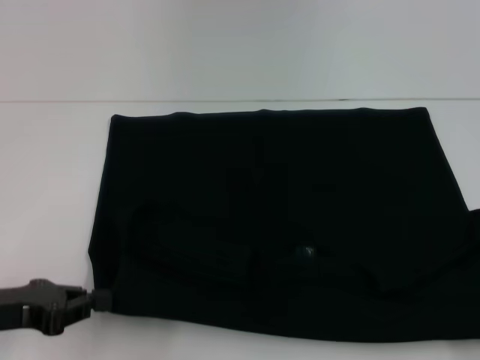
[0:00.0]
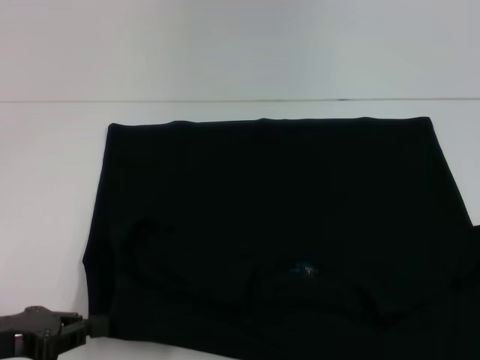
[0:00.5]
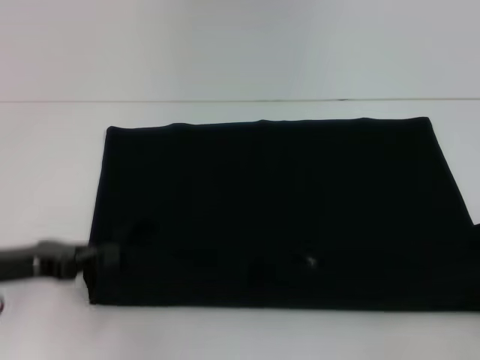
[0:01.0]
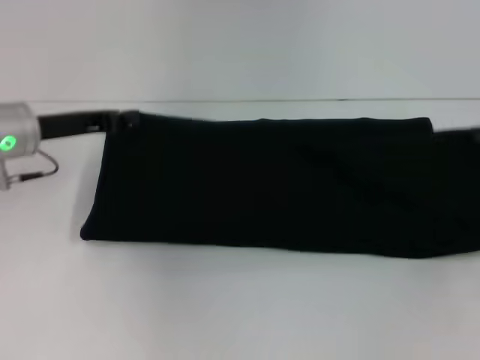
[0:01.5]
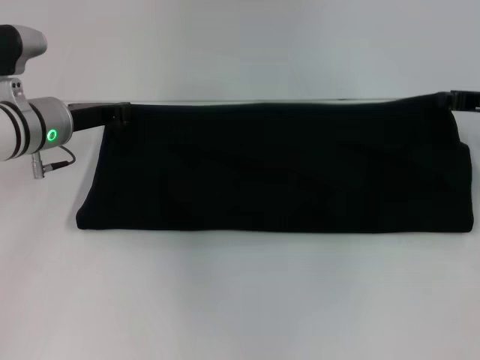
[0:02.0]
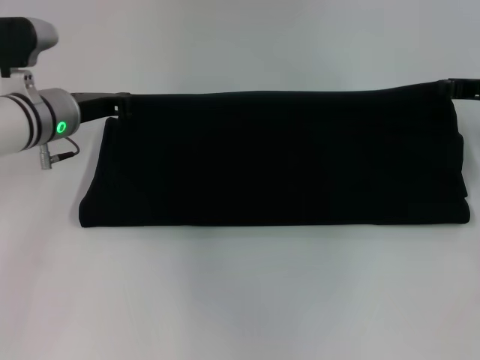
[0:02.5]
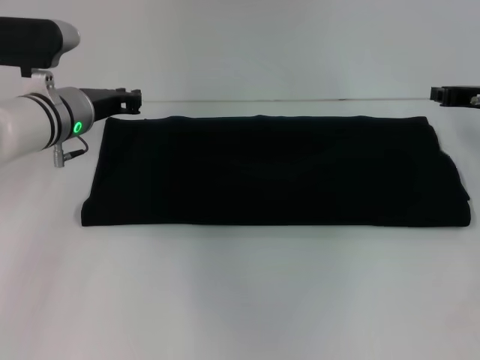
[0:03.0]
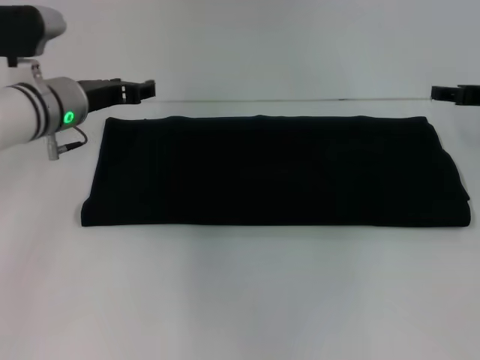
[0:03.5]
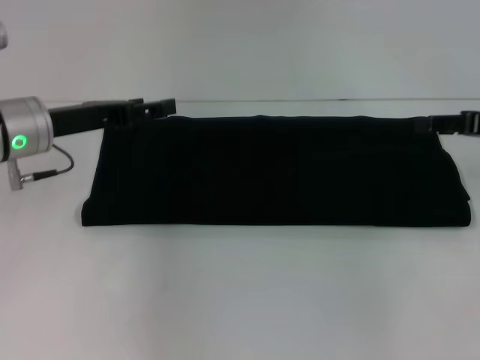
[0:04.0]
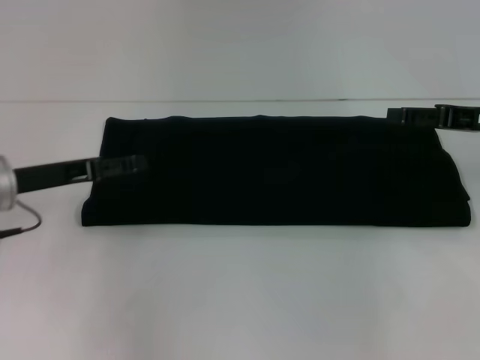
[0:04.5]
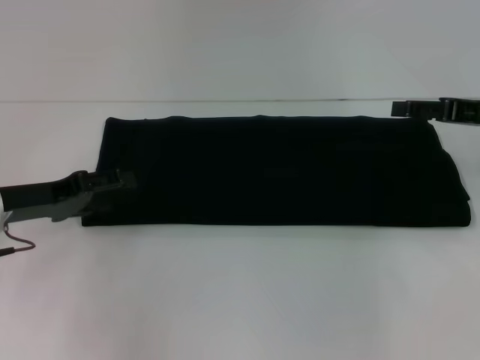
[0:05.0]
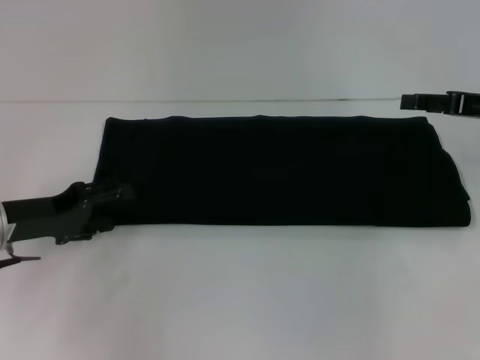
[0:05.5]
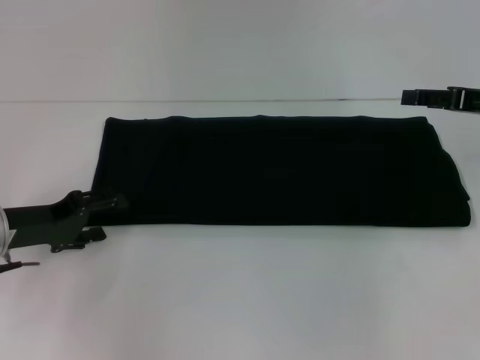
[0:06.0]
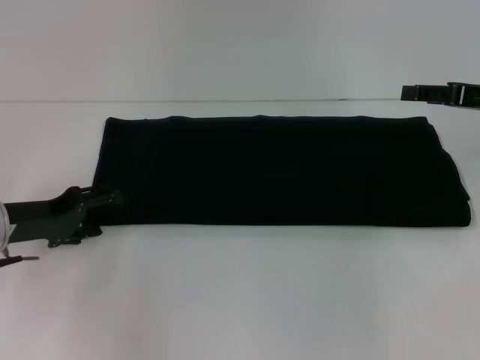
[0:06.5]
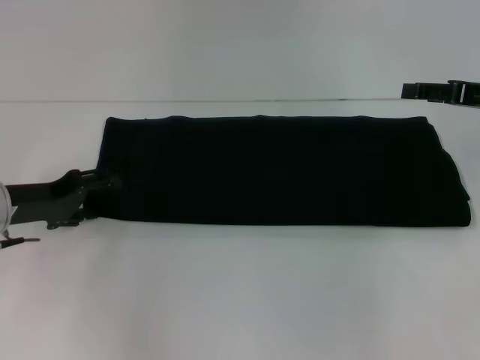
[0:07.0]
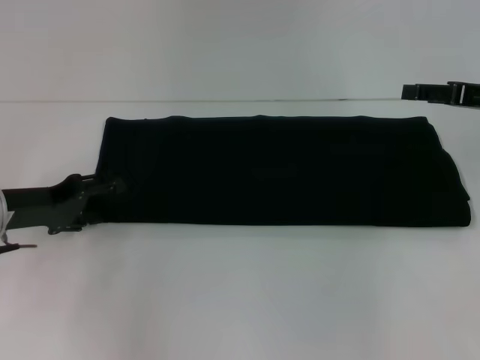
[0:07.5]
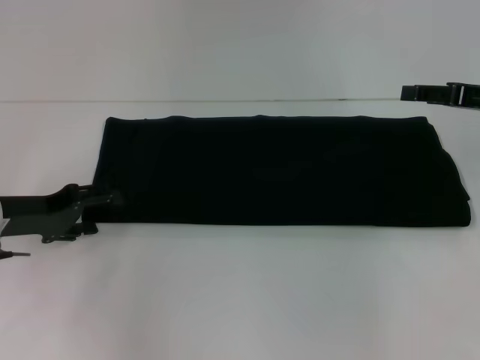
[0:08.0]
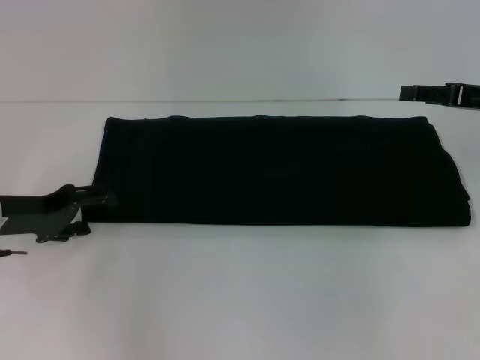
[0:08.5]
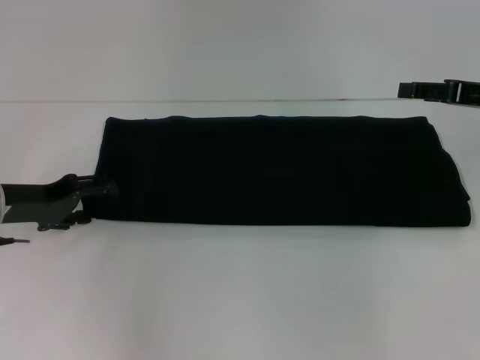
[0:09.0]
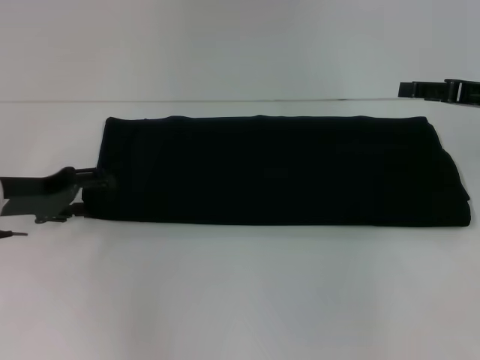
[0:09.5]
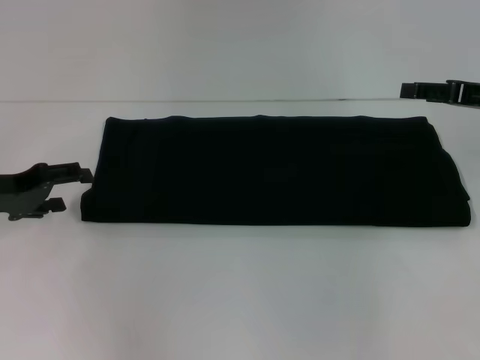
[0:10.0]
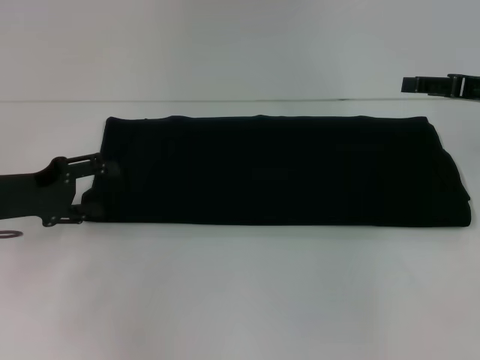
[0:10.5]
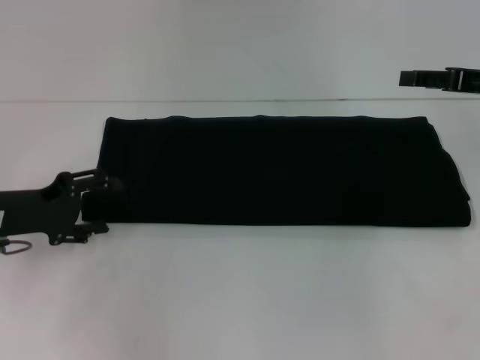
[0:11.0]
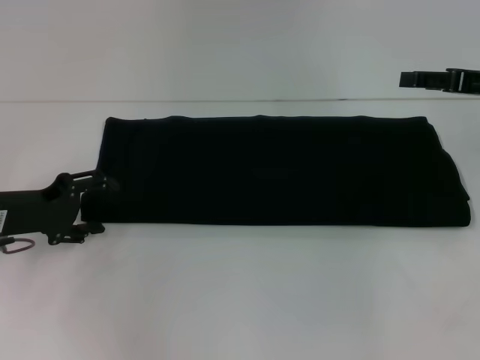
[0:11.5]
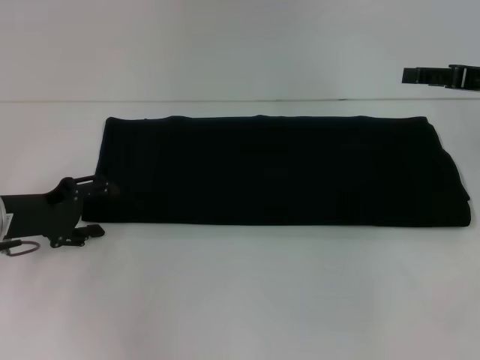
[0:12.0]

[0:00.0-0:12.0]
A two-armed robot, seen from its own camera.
Step, 0:01.0 to 0:04.0: Fold the clothes with your right hand.
0:00.0 to 0:02.0: The grippers both shift forward by some 20 cm.
0:02.0 to 0:04.0: The right gripper opens. The left gripper ends up some 5 cm from where it was, and opens its fingers.
0:04.0 to 0:06.0: The left gripper travels downward, backward and to the left by some 10 cm.
0:06.0 to 0:10.0: The grippers stay close to where they were, moving slightly.

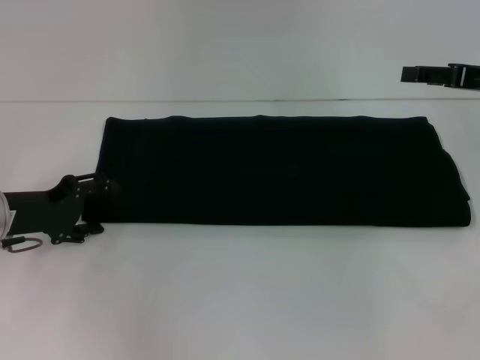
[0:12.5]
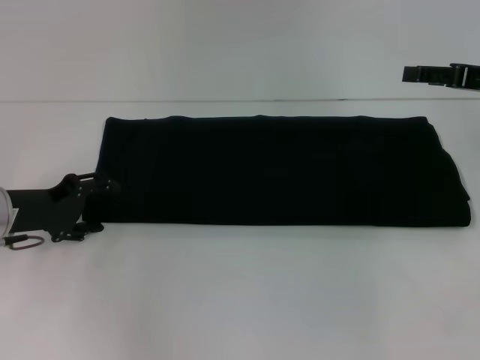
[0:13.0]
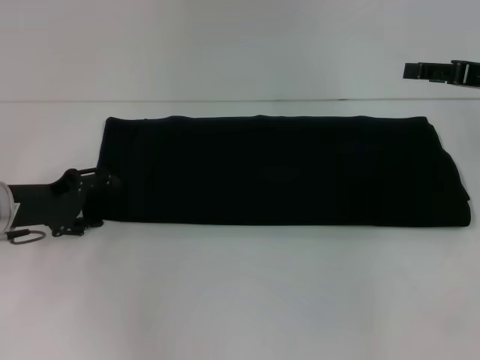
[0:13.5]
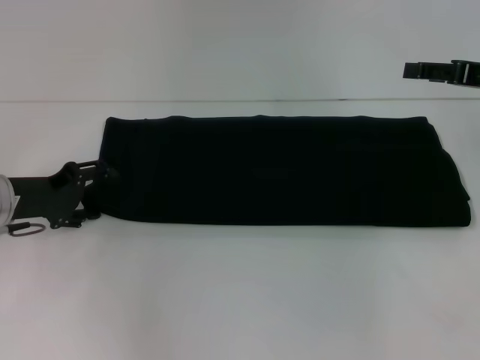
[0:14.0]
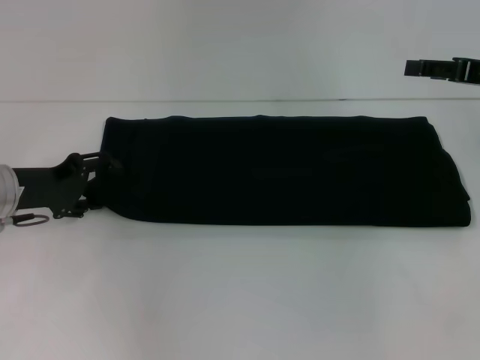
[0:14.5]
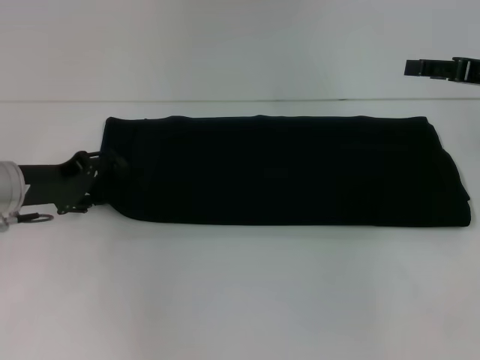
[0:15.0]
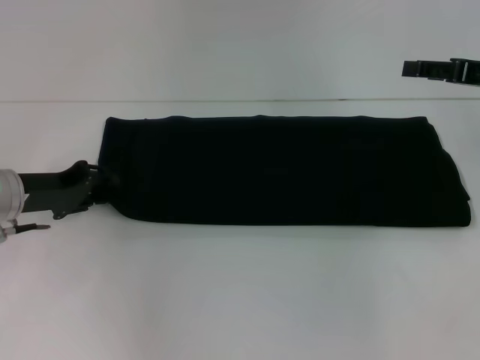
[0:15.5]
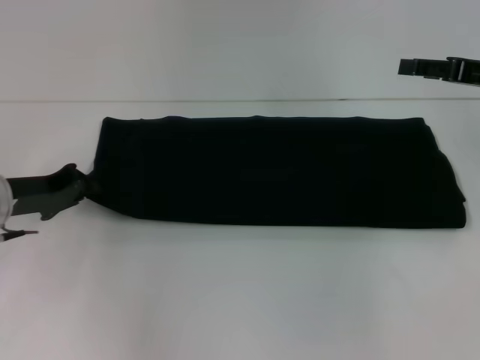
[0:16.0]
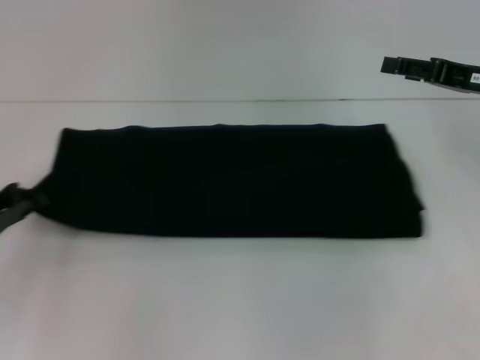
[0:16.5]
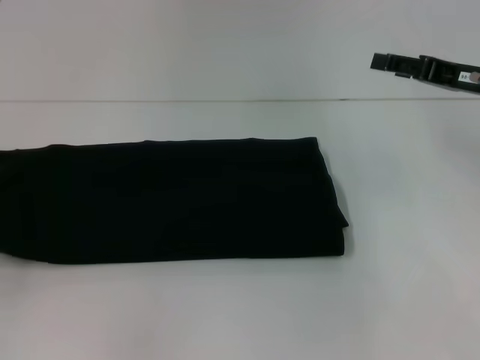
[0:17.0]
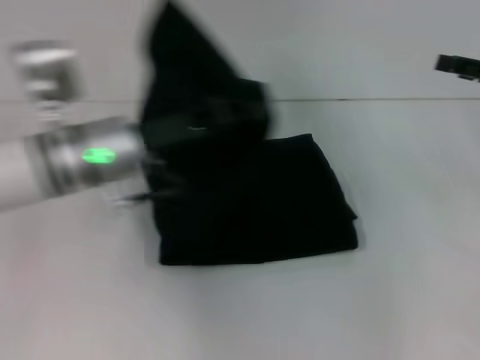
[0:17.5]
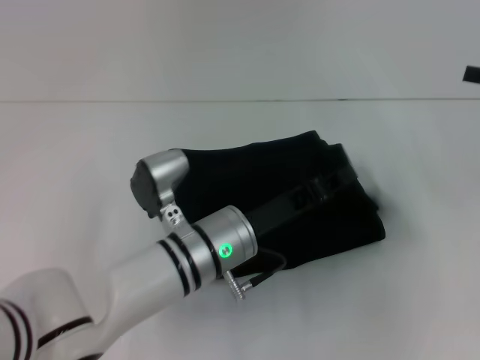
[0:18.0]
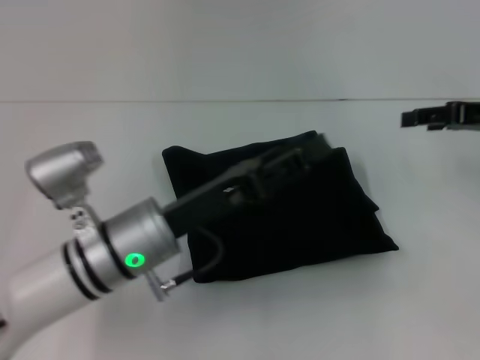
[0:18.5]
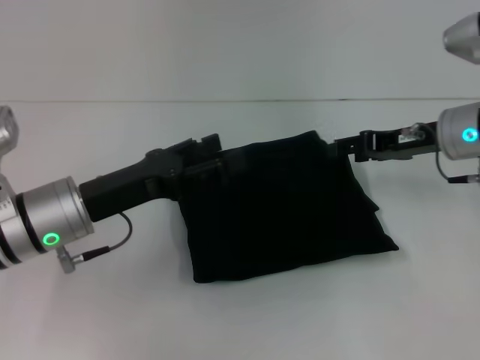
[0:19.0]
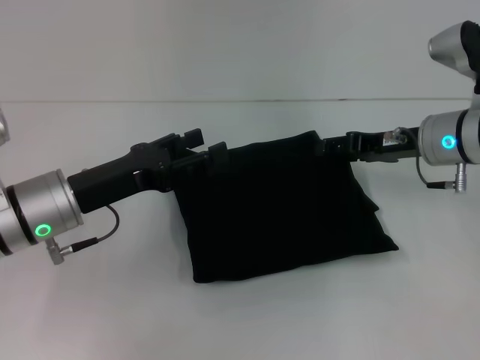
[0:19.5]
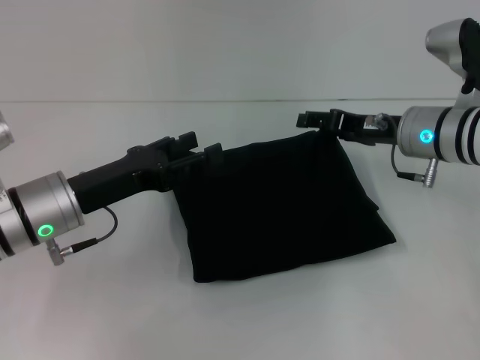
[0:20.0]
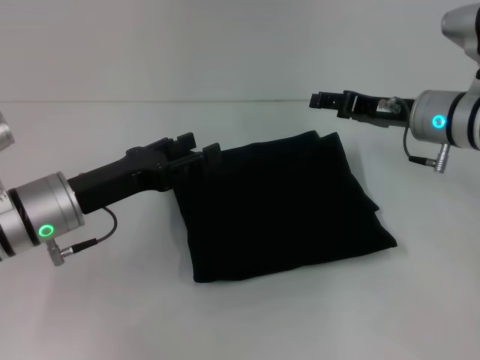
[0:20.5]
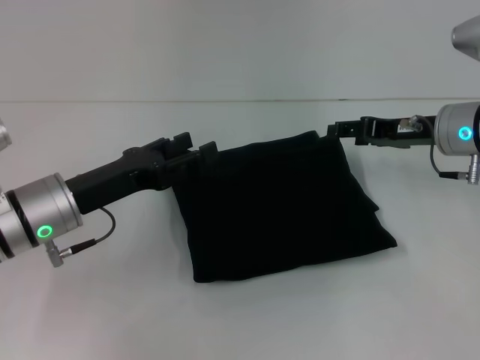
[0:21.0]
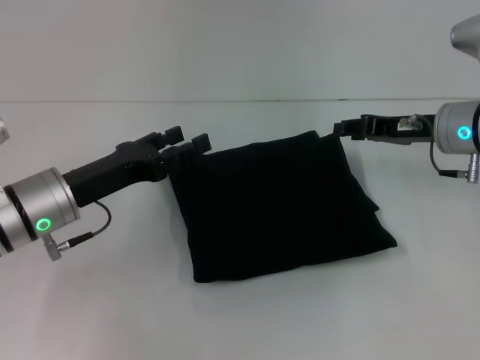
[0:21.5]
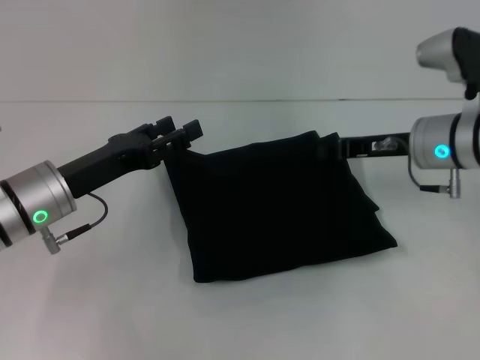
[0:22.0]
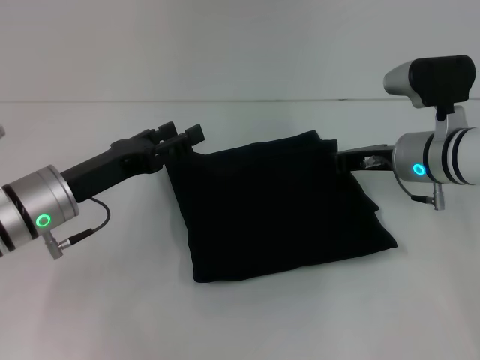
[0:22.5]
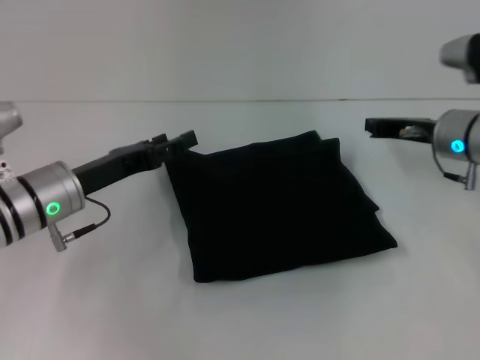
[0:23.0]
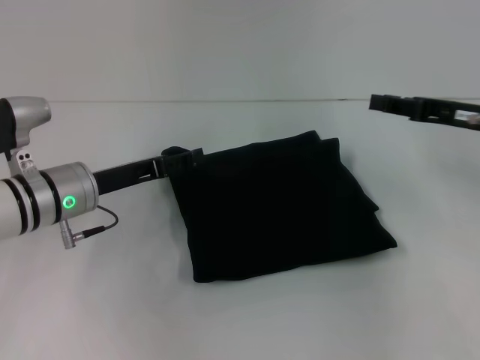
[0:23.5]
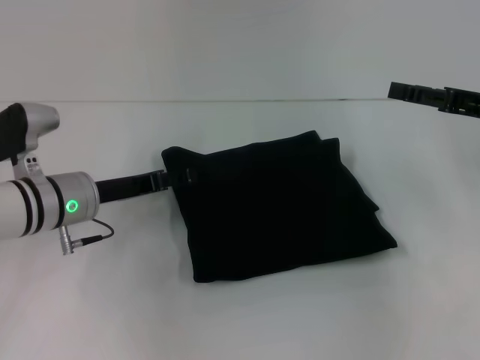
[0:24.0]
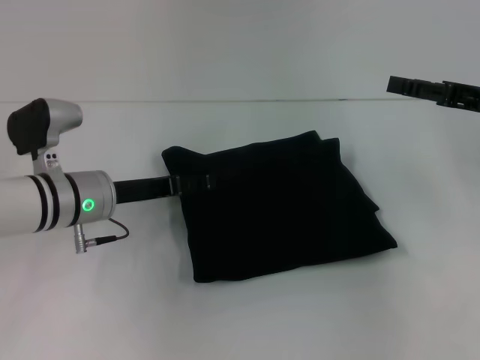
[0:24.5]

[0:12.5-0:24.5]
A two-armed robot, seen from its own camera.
Step, 0:12.5 to 0:18.0: Fold the clothes with your left hand.
0:12.5 to 0:14.5: The grippers stay close to where they were, moving slightly.
0:14.5 to 0:16.5: The left gripper is displaced backward and to the left by about 10 cm, and closes.
0:16.5 to 0:18.5: The left gripper swings left and right, approximately 35 cm each way, with 2 reversals, and opens. Meanwhile the right gripper goes to the right and returns, about 10 cm each way.
0:18.5 to 0:20.5: Both grippers travel together to the left, some 10 cm. The left gripper opens its fingers.
0:20.5 to 0:22.5: The right gripper closes its fingers.
0:22.5 to 0:24.5: The left gripper shifts by about 5 cm. The right gripper goes some 15 cm to the right and upward, and opens up.

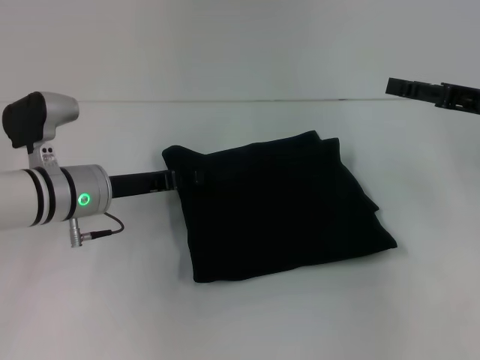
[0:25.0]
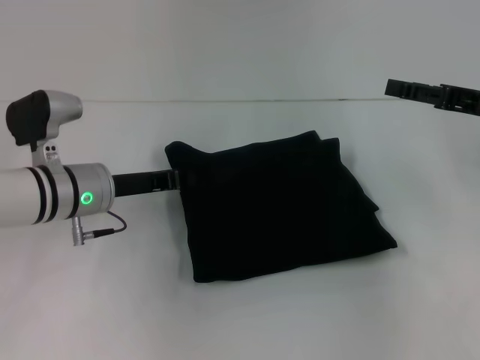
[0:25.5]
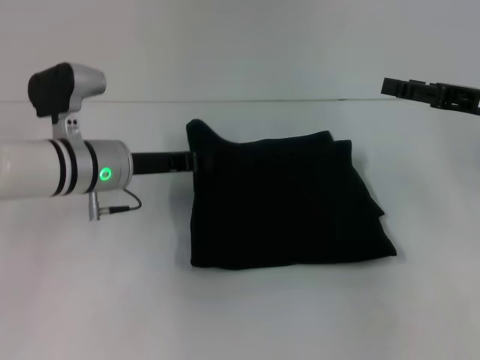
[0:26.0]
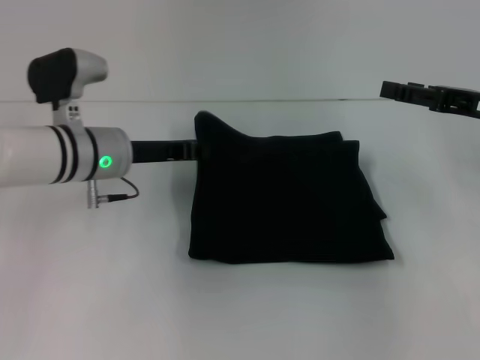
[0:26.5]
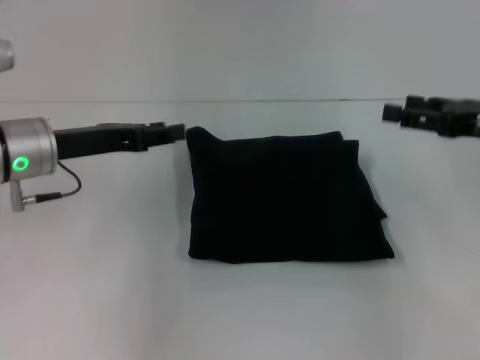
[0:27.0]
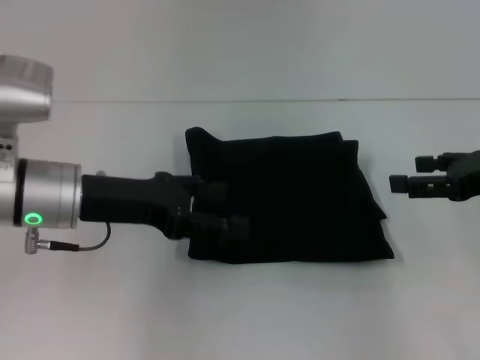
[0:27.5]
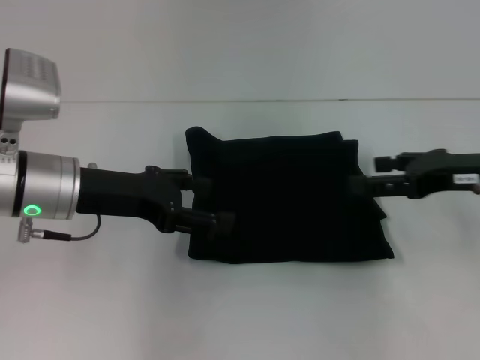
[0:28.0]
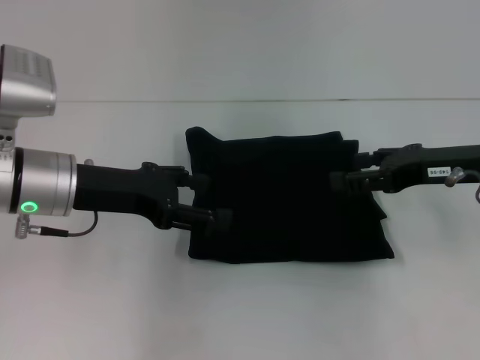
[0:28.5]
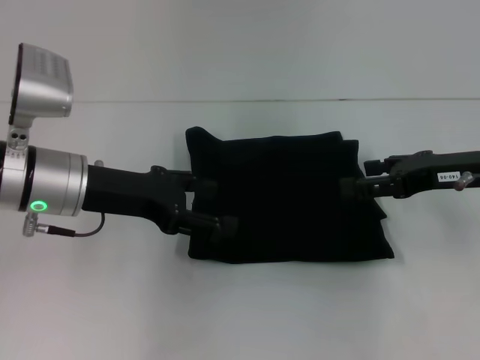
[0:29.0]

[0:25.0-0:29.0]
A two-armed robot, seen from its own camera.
0:25.0 to 0:27.0: The left gripper goes roughly 5 cm upward, and closes, then opens again.
0:27.0 to 0:29.0: The left gripper opens up.
